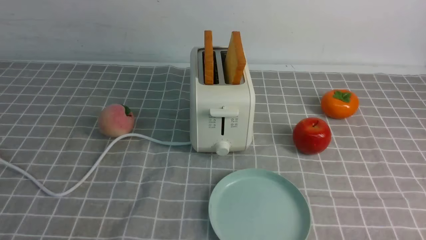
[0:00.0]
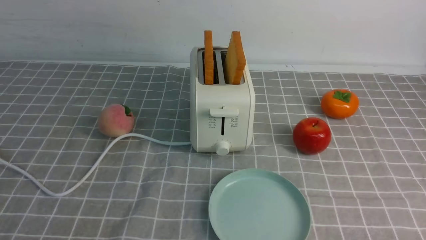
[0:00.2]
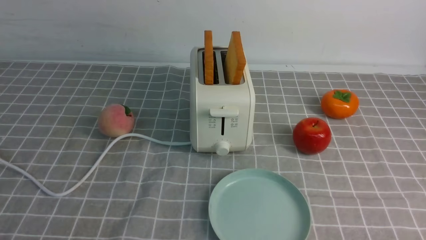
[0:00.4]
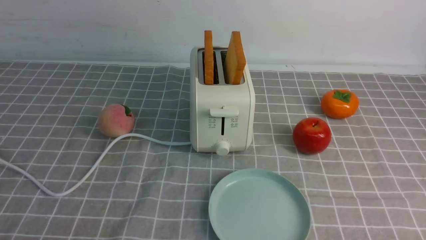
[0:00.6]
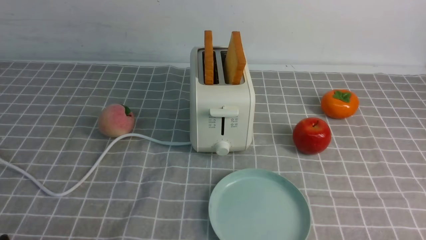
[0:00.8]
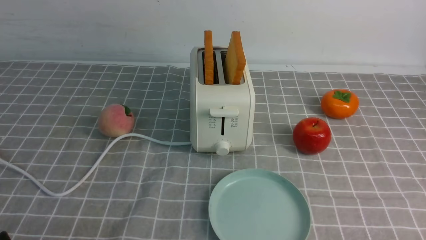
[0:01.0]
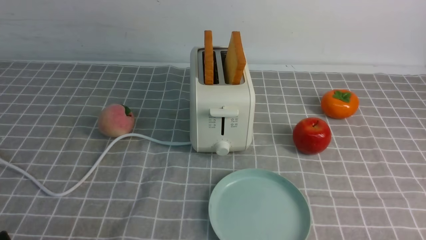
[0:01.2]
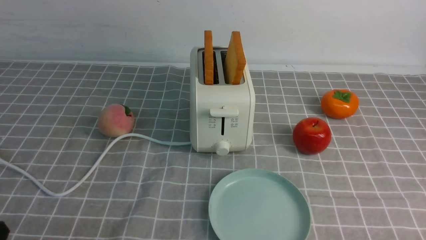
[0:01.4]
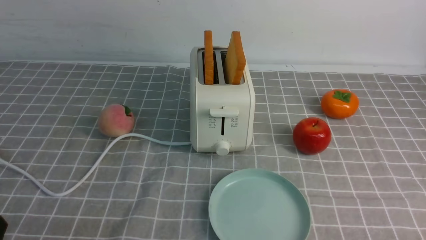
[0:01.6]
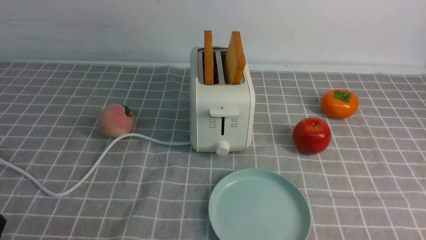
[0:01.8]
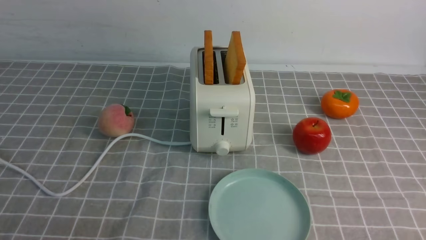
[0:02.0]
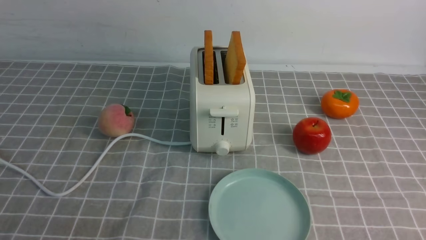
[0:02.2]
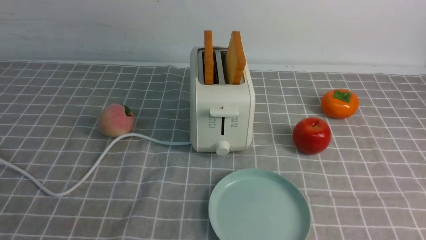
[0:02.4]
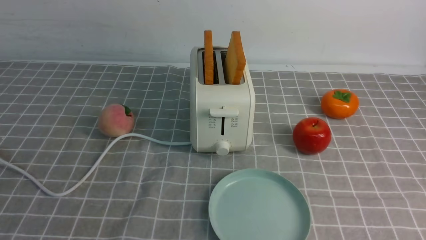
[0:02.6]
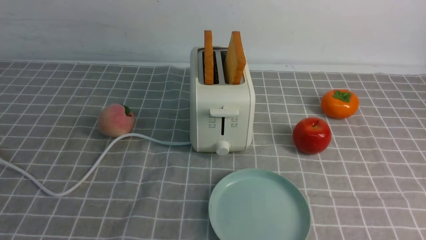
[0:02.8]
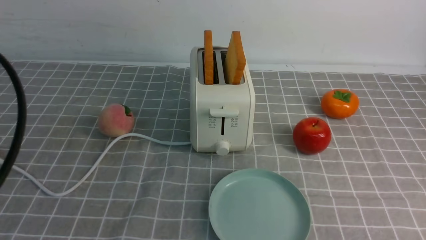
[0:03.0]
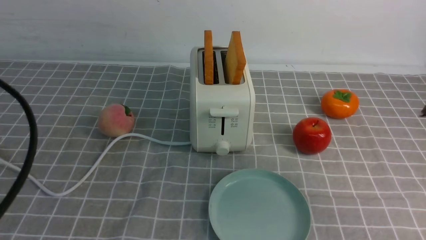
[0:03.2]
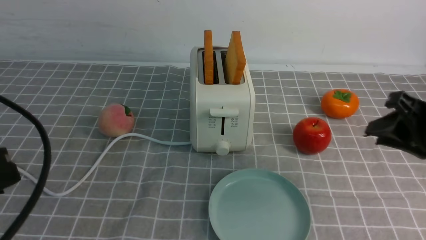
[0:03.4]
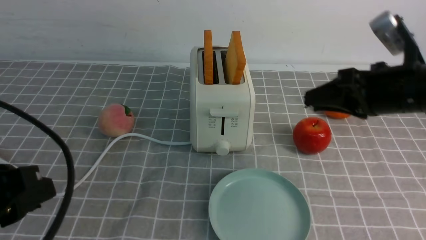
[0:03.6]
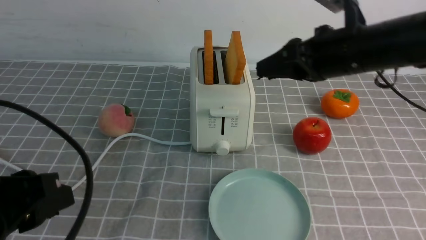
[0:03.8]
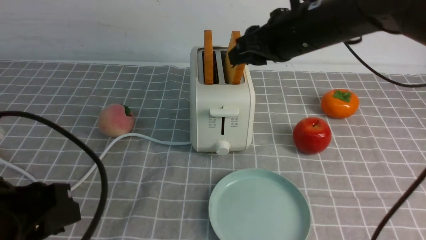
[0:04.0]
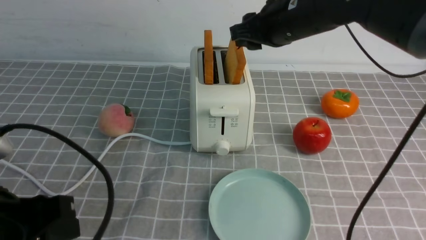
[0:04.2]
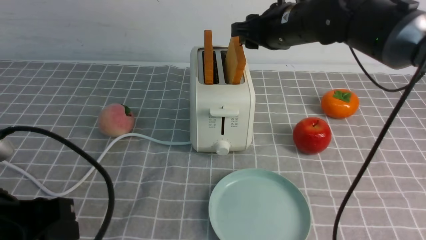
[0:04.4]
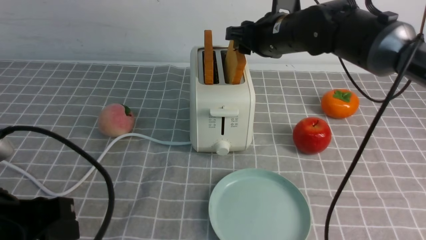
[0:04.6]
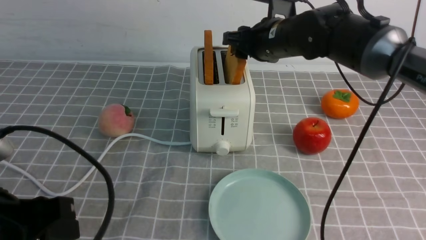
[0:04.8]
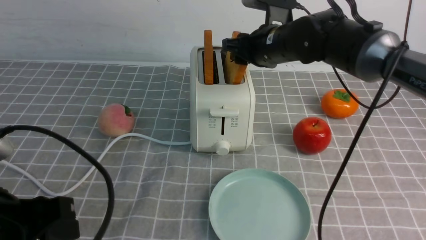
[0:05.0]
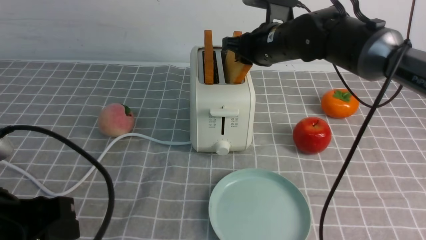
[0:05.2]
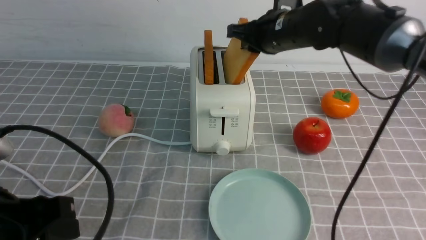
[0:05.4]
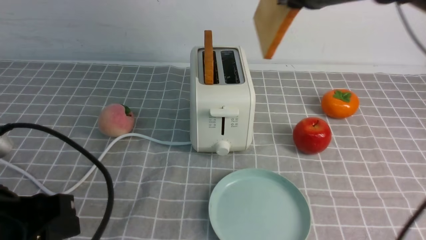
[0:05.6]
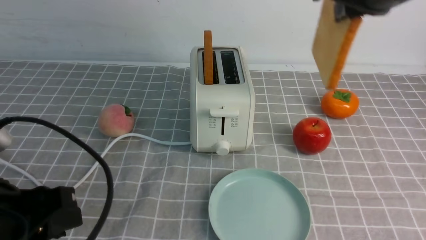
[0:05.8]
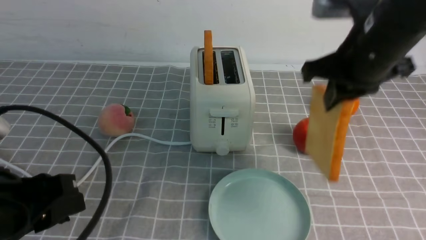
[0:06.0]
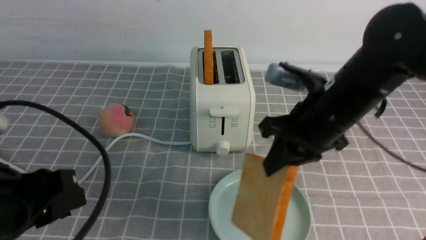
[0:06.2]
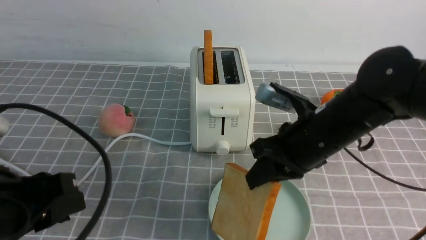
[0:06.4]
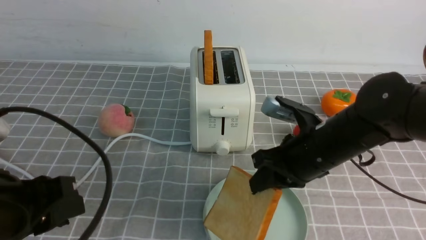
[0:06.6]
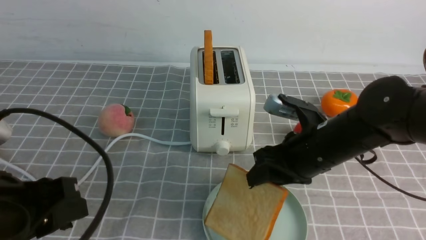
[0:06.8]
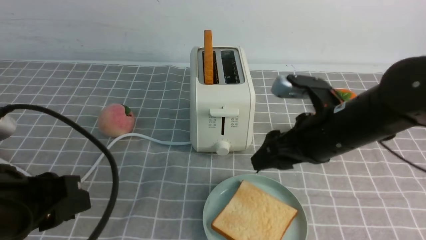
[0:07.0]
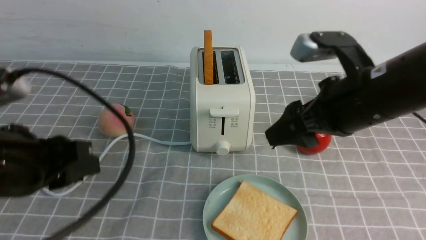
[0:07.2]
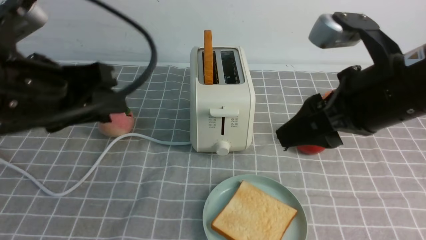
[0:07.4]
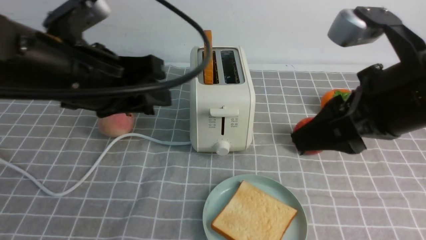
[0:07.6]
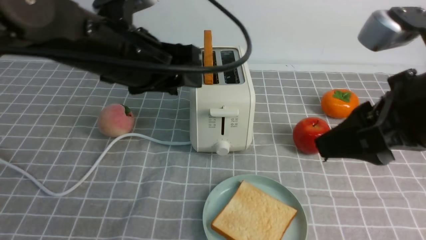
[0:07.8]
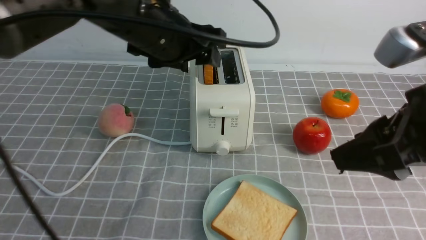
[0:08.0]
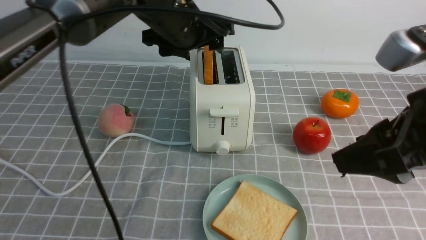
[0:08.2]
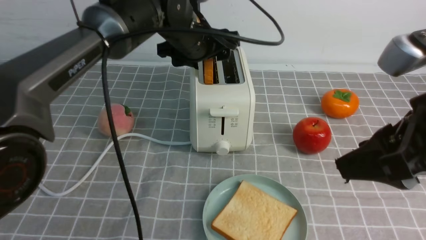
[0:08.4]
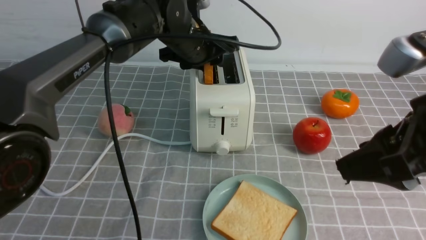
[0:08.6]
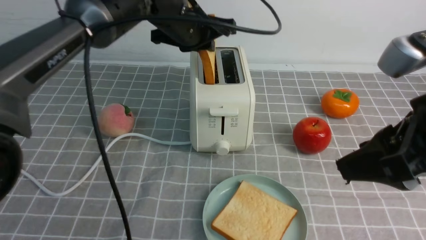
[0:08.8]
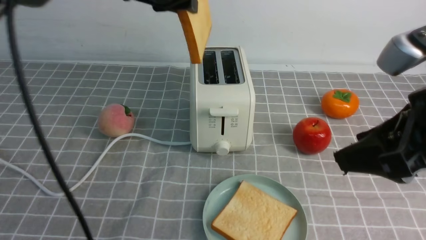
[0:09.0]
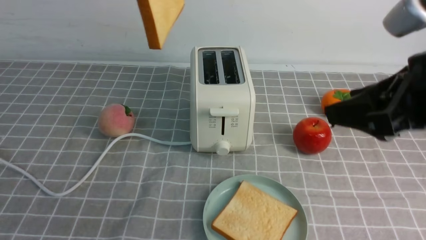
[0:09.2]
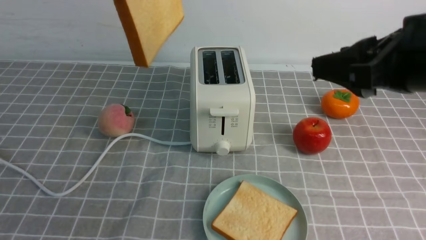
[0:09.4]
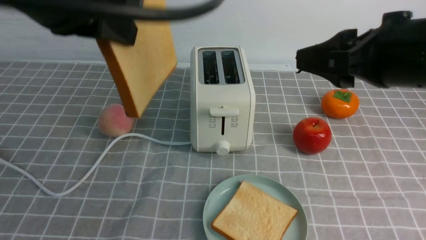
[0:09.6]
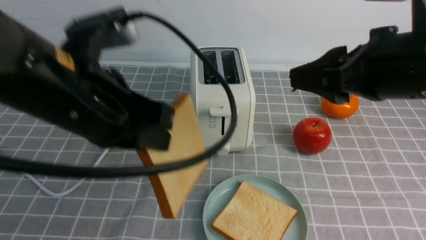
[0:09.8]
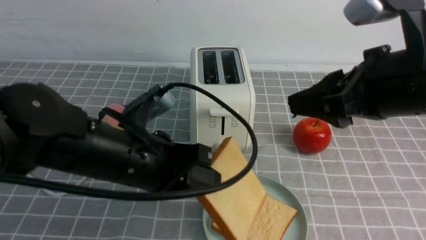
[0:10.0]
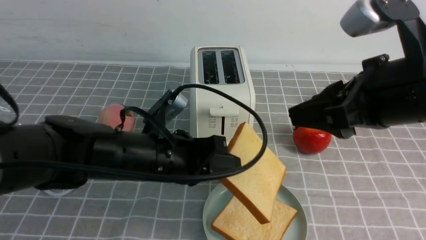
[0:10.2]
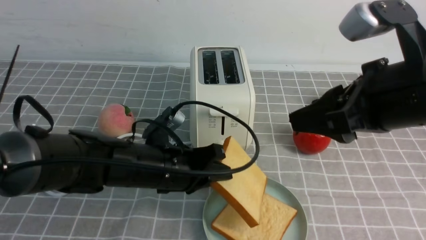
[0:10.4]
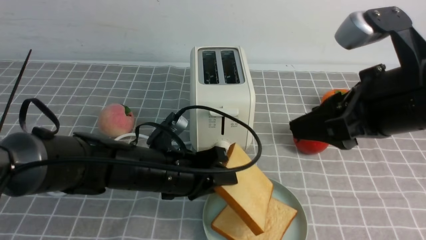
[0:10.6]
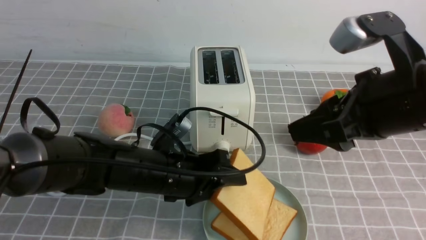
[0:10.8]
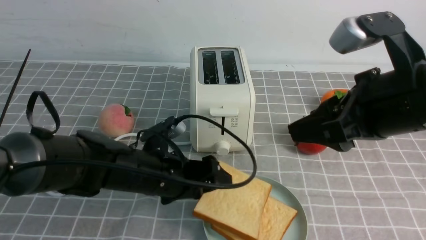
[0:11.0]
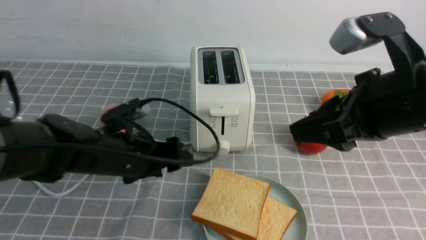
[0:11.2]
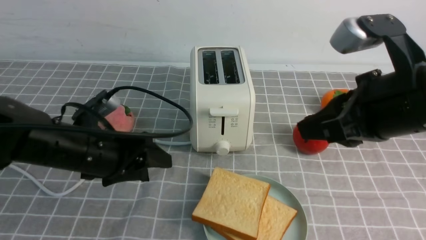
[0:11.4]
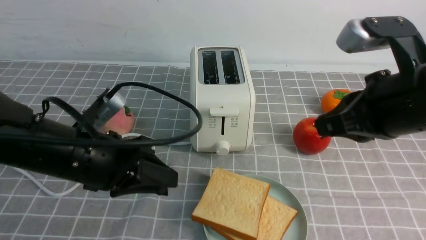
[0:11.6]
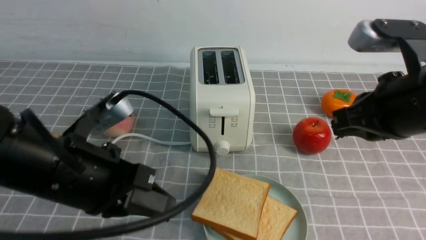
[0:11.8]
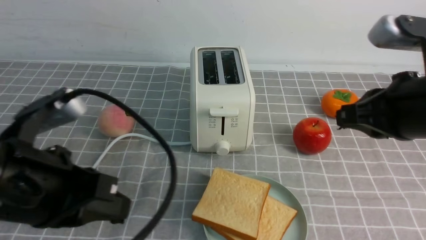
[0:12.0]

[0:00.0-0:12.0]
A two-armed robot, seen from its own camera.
Task of the whole recording: take toasted bread from bread machine on grey coffee table place on plate.
Step, 0:00.0 to 0:05.4: use the right arm to take out a slice of bread.
Step, 0:05.6 to 0:07.0: use the right arm to put a slice of bread into the plate.
Step, 0:07.2 to 0:08.8: use the left arm to take out a slice of bread.
Step, 0:09.2 to 0:11.2: use the left arm to put a slice of bread into the empty plate.
0:01.6 to 0:03.0: The grippers both shift upward and forward by approximately 20 cm.
0:03.0 to 0:04.4: The right gripper travels forward and to the left by approximately 30 cm, while the left gripper moves downward, some 10 cm.
0:04.4 to 0:06.0: The right gripper travels backward and to the right by about 15 cm, and closes.
0:06.0 to 0:07.6: The right gripper moves backward, about 10 cm, goes downward and returns, some 10 cm each way, and opens up. Meanwhile the left gripper heads forward, upward and to the right, covering approximately 15 cm.
0:07.6 to 0:09.0: The left gripper travels forward and upward by approximately 15 cm, and closes.
0:09.0 to 0:10.4: The left gripper goes roughly 25 cm downward.
0:10.4 to 0:12.0: The left gripper goes roughly 20 cm backward, upward and to the left, and opens and closes again. The right gripper closes its fingers.

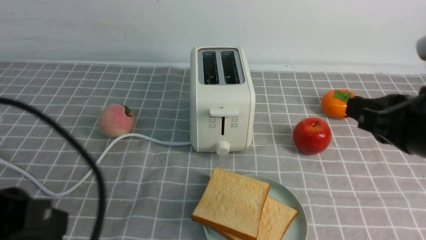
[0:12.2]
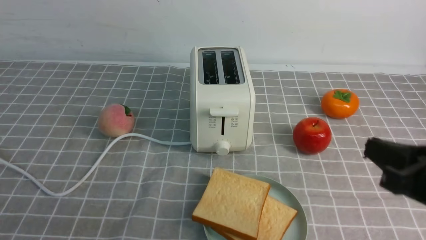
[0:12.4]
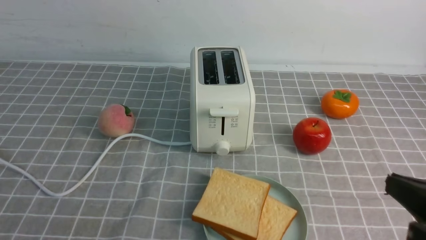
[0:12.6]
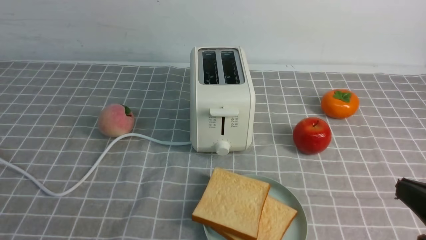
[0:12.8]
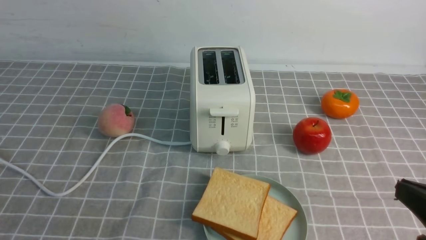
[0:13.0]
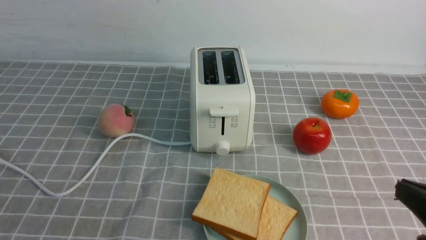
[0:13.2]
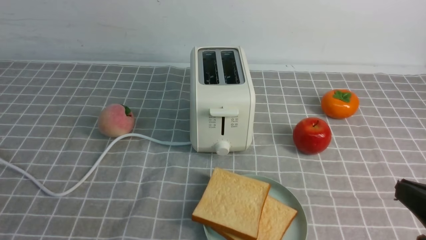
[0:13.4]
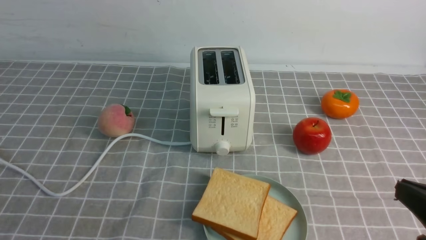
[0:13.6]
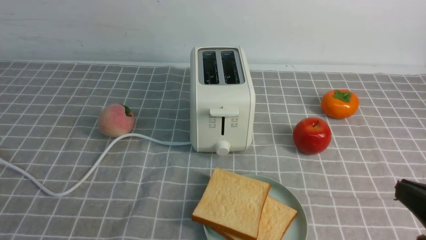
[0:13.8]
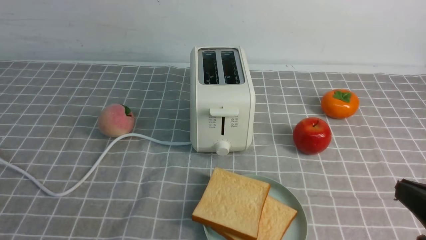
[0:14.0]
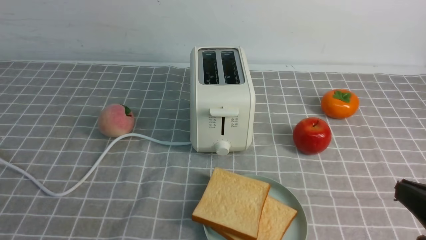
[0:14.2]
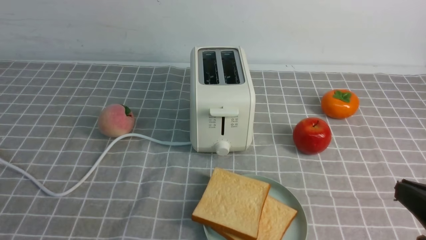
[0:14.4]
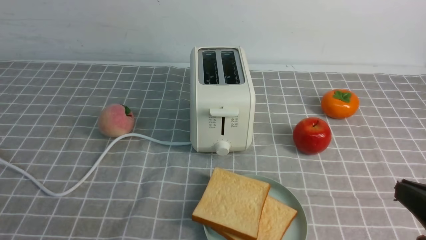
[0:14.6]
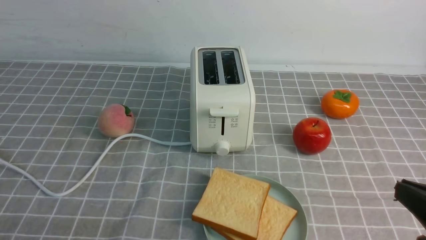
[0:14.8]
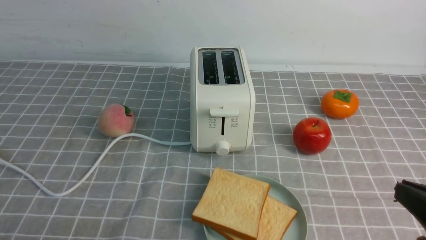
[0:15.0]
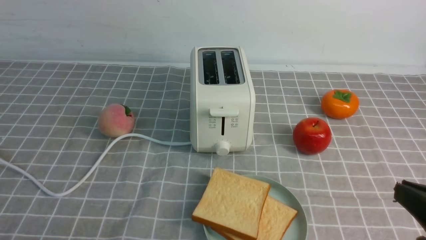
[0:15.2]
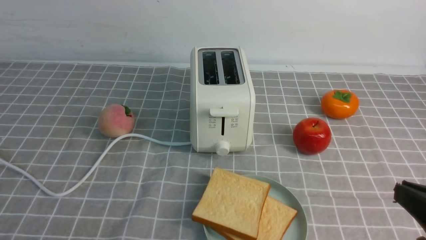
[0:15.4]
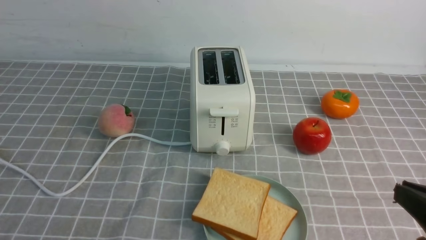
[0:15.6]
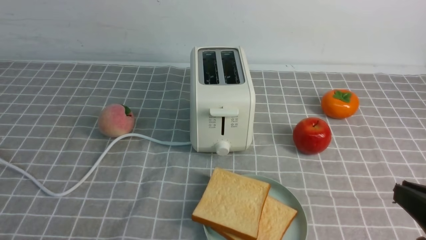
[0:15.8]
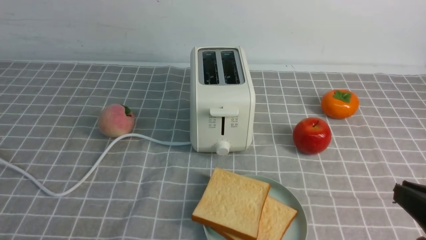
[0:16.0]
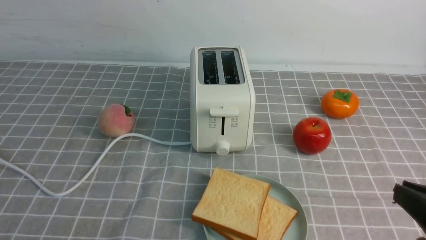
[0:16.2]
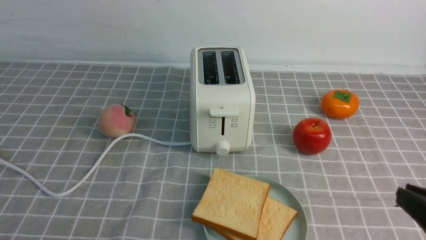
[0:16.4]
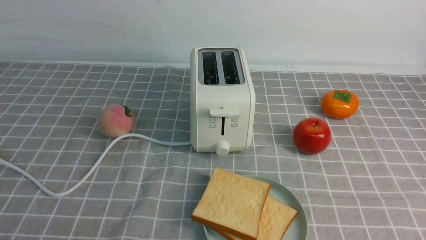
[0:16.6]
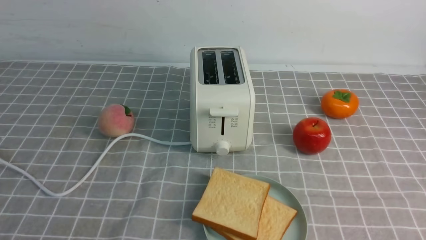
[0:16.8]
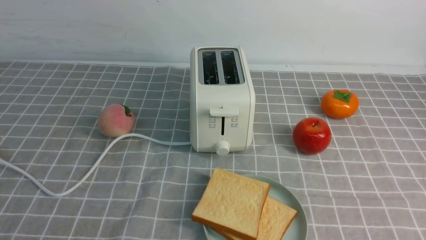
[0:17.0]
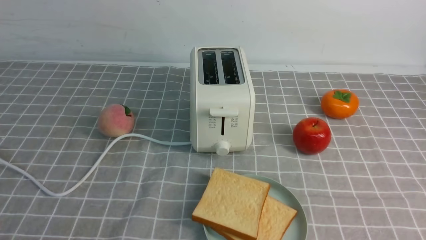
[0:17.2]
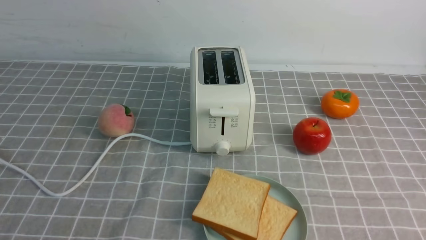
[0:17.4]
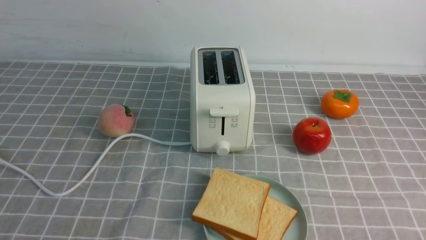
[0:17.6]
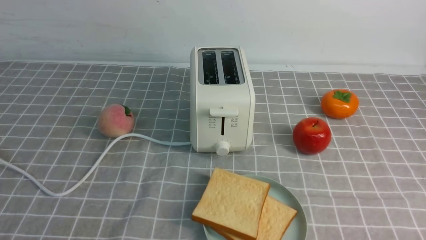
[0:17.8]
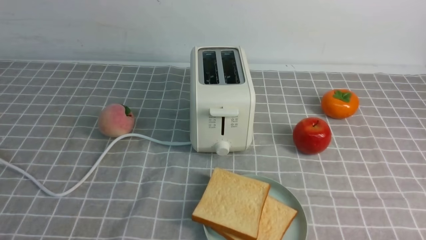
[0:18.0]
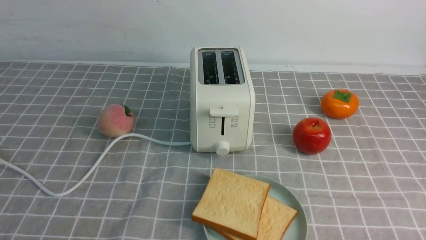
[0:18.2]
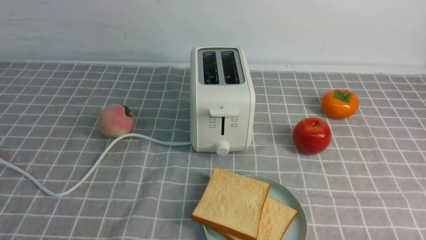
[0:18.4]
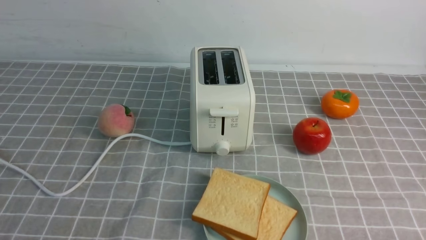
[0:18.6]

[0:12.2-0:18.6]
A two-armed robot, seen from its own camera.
Task of the whole recording: take toasted bread from bread machine on grey coffee table place on plate.
0:12.2 to 0:13.8: The right gripper shifts about 10 cm backward and downward; the left gripper moves backward, some 10 cm.
0:15.4 to 0:17.0: The right gripper goes approximately 5 cm backward.
